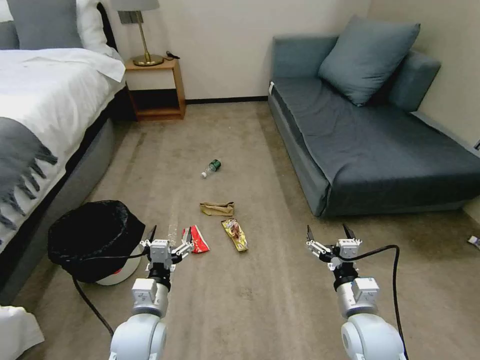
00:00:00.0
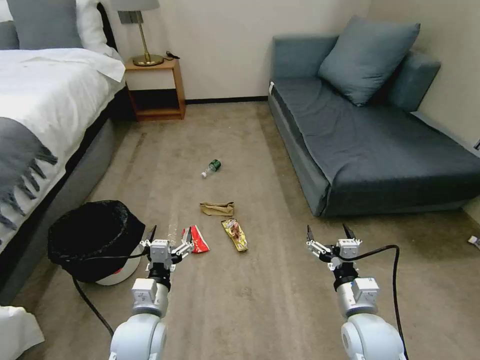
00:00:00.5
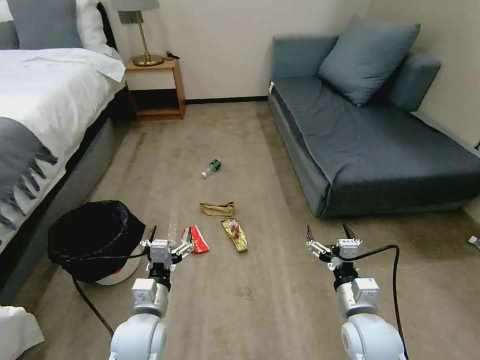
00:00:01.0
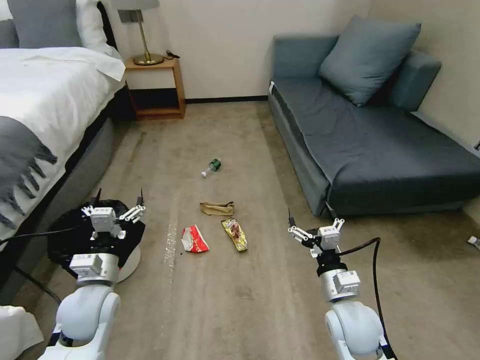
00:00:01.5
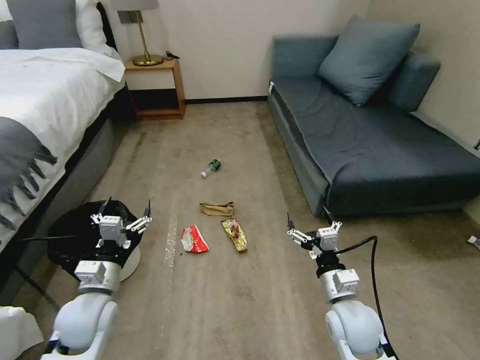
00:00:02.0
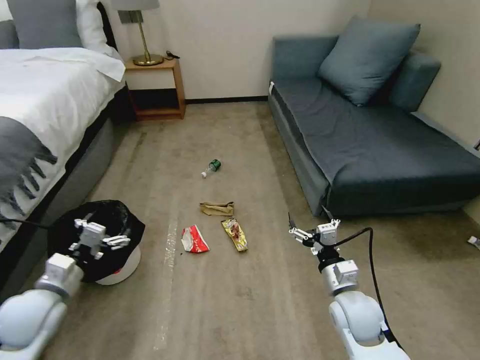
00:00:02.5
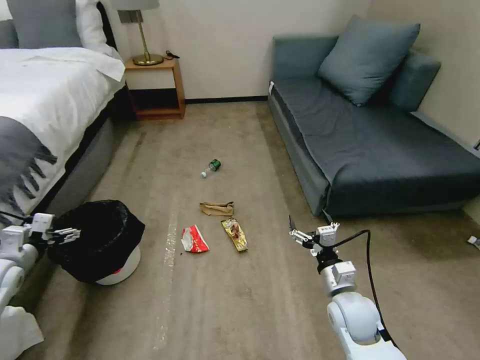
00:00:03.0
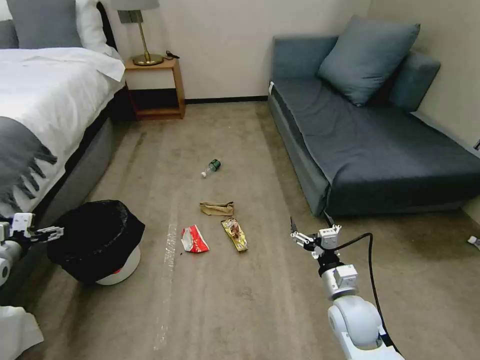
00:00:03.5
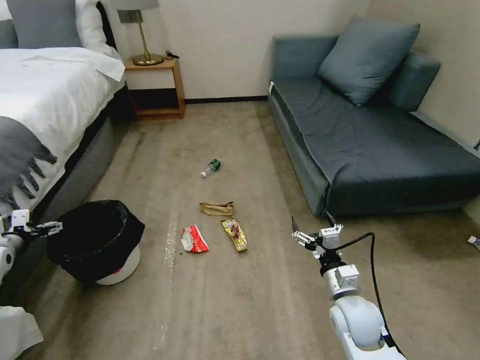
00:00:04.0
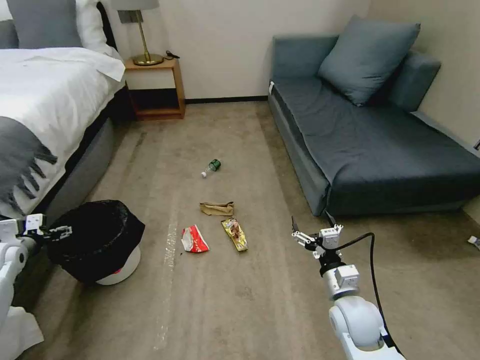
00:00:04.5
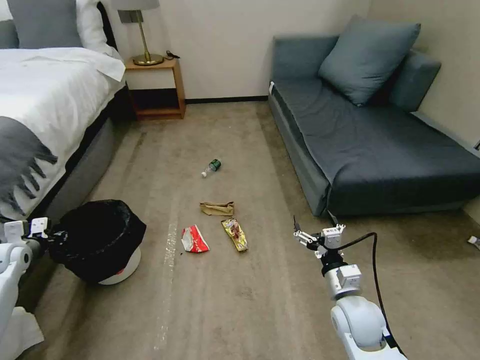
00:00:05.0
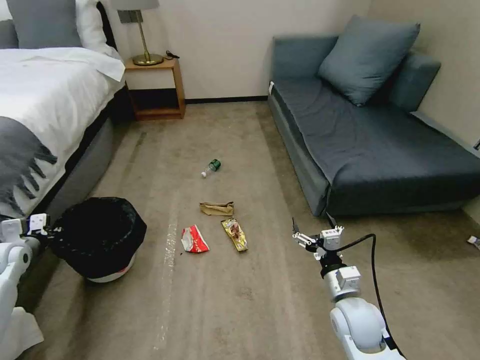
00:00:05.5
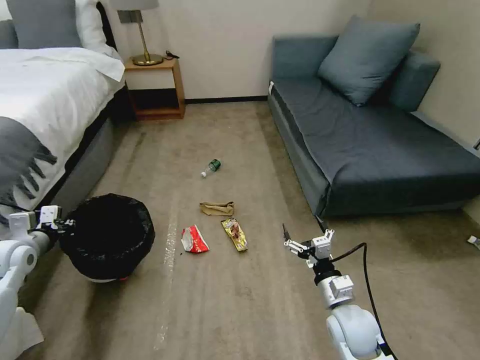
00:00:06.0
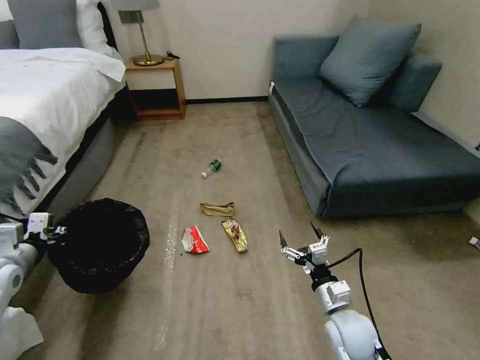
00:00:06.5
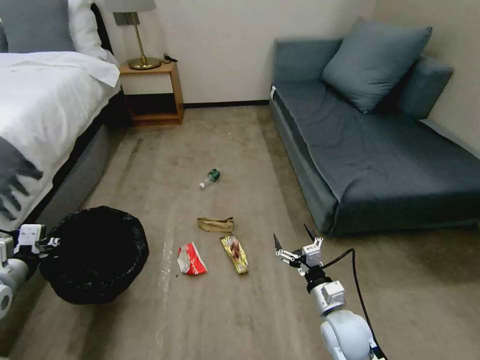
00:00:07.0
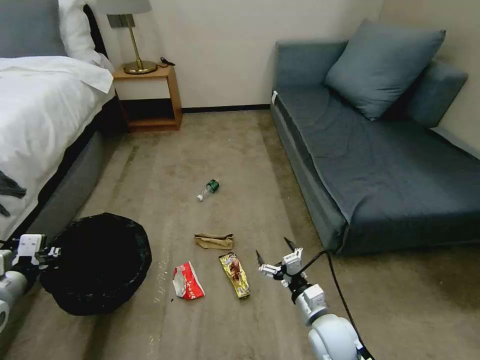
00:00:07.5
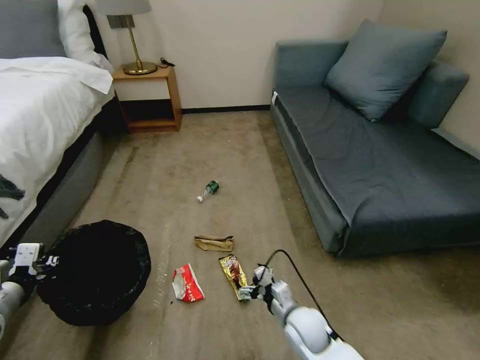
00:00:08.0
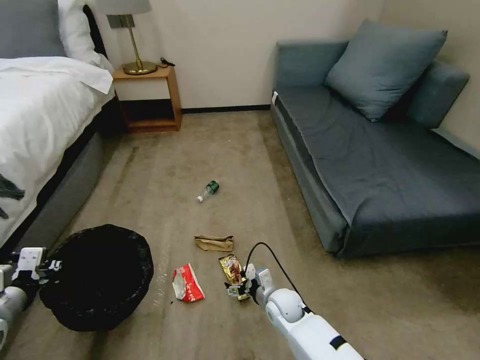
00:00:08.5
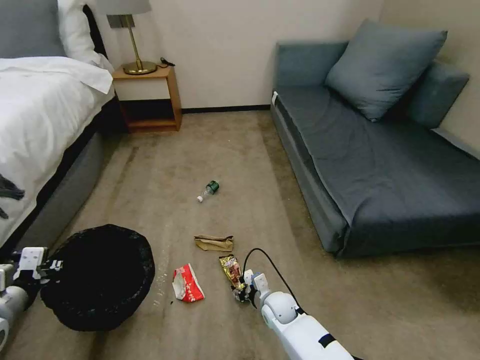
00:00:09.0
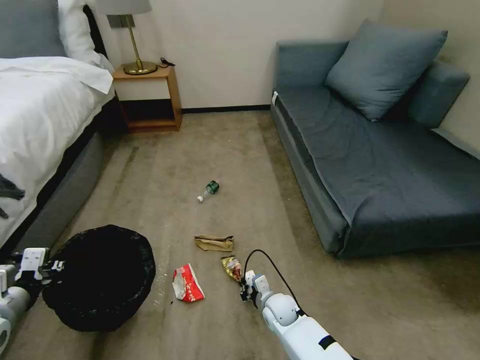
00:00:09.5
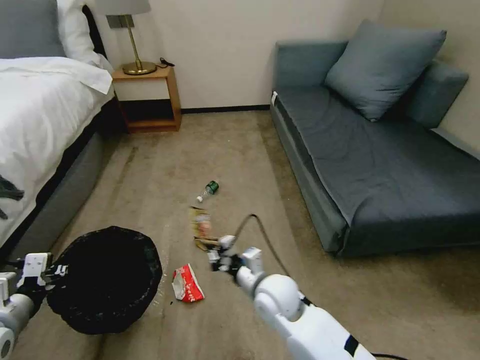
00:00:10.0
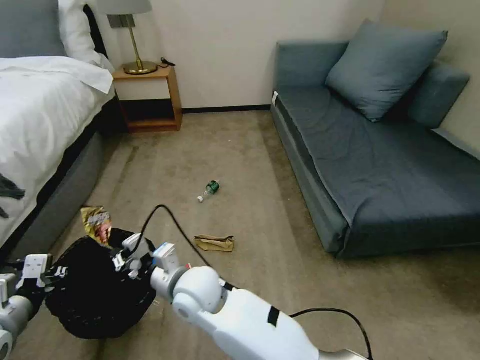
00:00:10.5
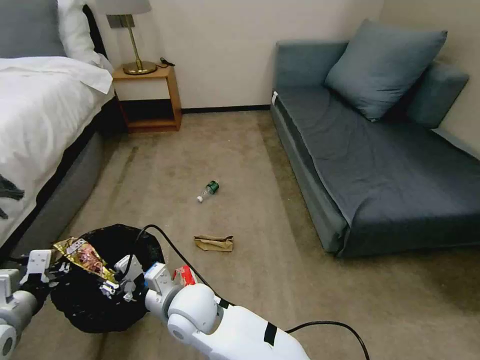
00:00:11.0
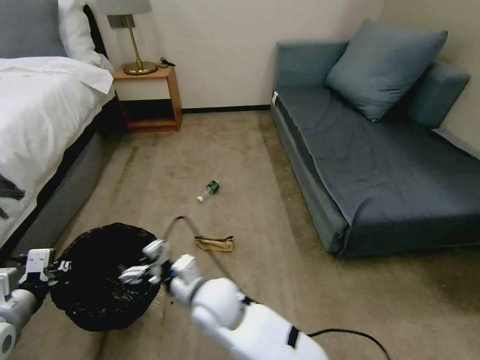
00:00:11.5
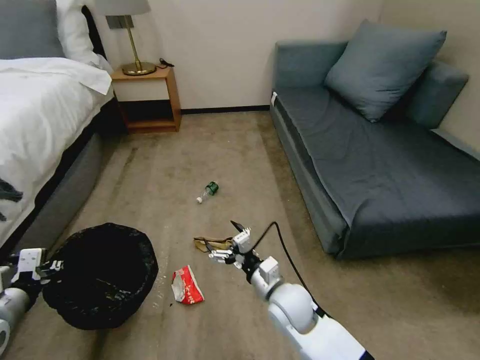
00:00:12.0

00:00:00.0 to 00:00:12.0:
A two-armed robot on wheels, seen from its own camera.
Task of the whole recording: Pick up the trash bin, then pick up the garbage on the floor and place it into the trash bin.
00:00:02.0 to 00:00:04.0: The left gripper goes about 30 cm to the left.
00:00:04.0 to 00:00:06.0: The left gripper goes some 10 cm to the right, and closes.
00:00:06.0 to 00:00:08.0: The right gripper shifts some 10 cm to the left and downward, while the left gripper goes roughly 15 cm backward and to the right.
00:00:08.0 to 00:00:10.0: The right gripper shifts roughly 15 cm upward, to the left and forward, and closes up.
00:00:10.0 to 00:00:12.0: The right gripper goes to the left and returns, some 20 cm each way, and opens its fingers.

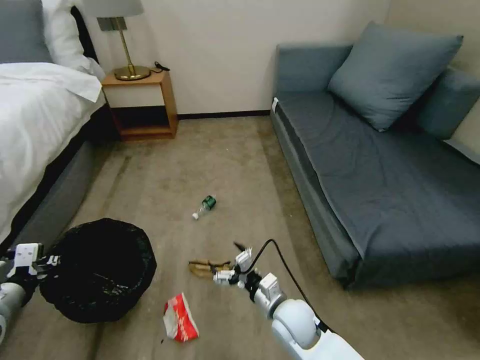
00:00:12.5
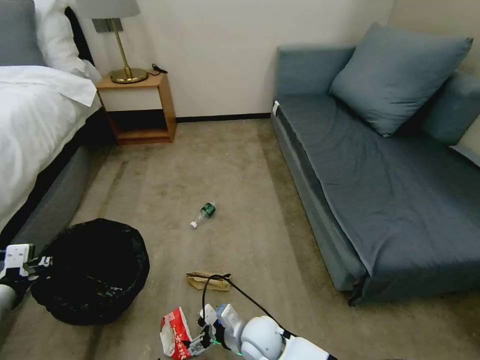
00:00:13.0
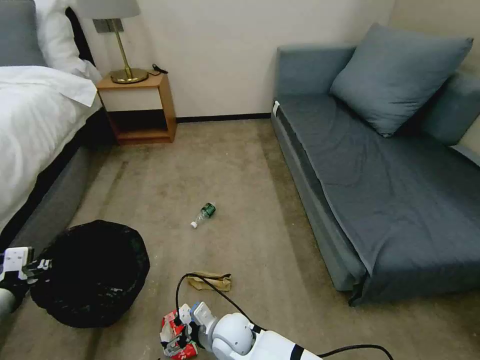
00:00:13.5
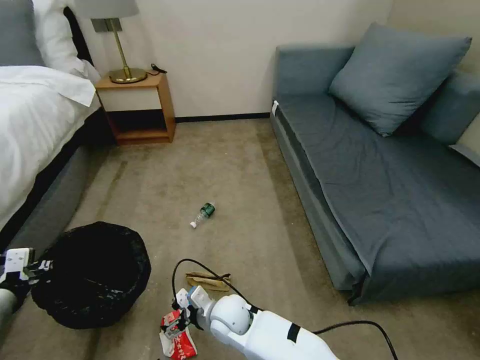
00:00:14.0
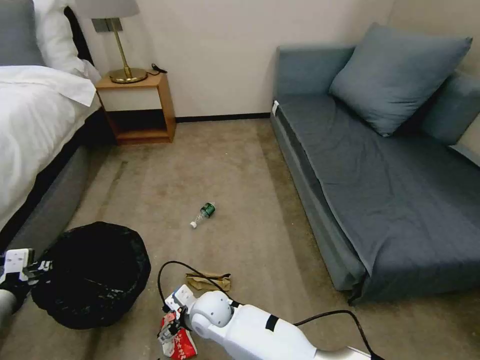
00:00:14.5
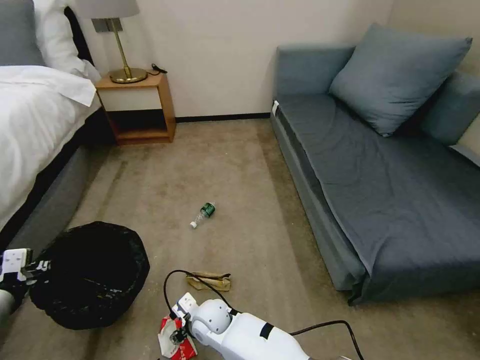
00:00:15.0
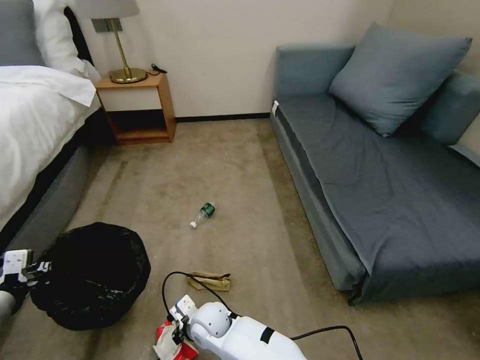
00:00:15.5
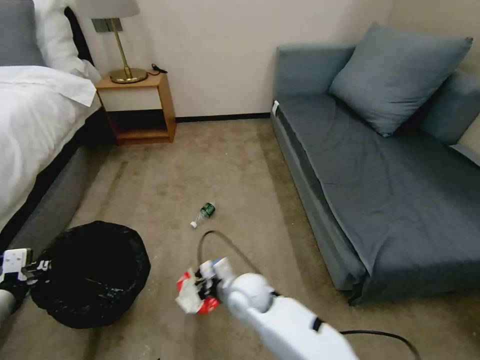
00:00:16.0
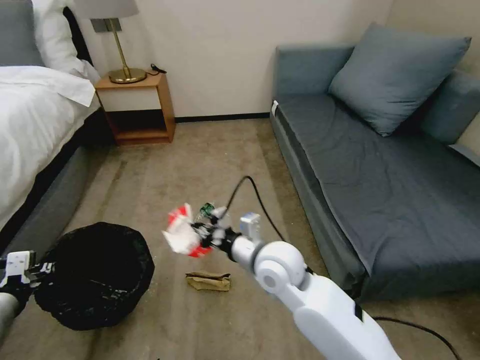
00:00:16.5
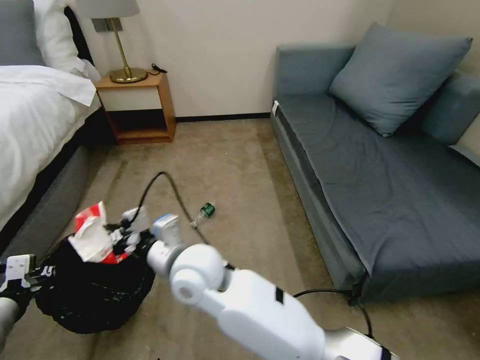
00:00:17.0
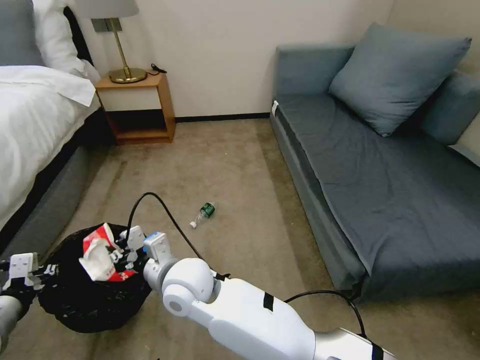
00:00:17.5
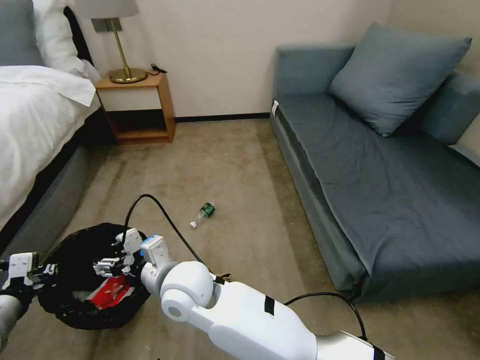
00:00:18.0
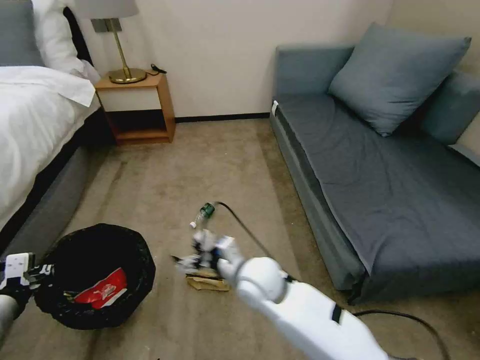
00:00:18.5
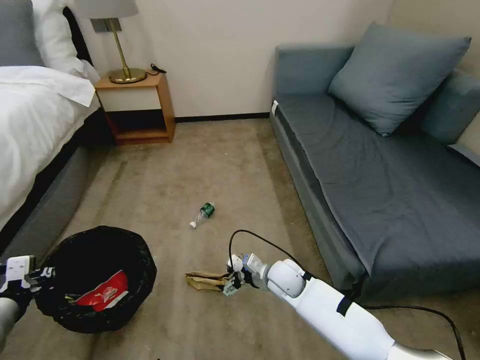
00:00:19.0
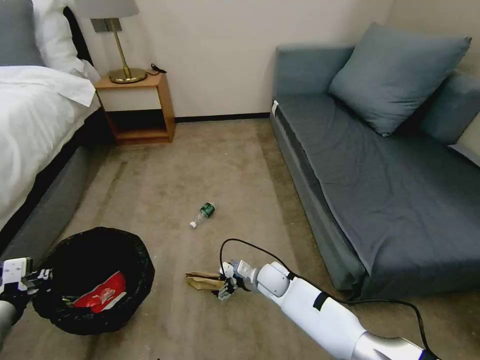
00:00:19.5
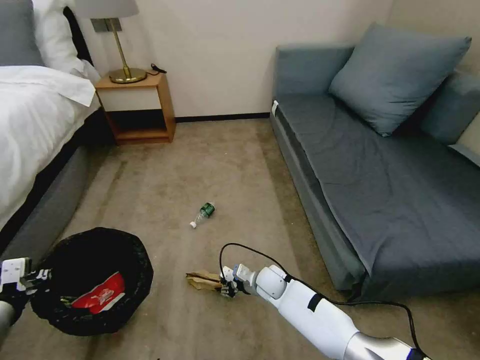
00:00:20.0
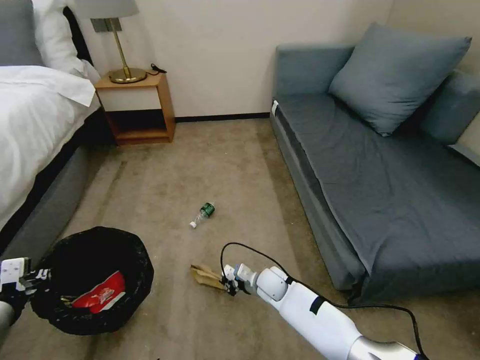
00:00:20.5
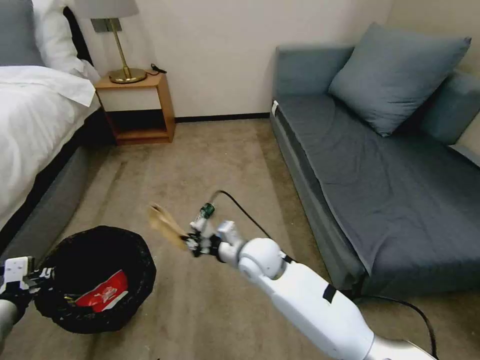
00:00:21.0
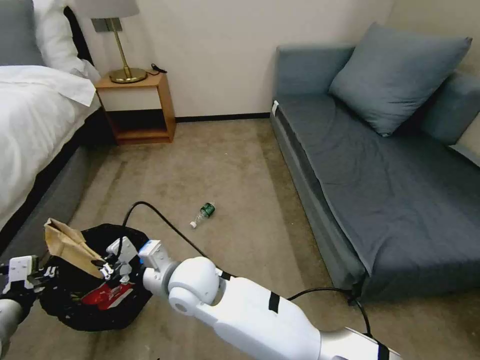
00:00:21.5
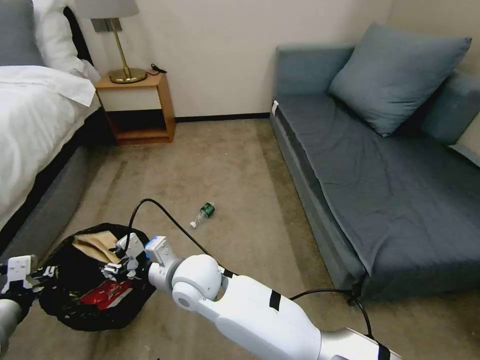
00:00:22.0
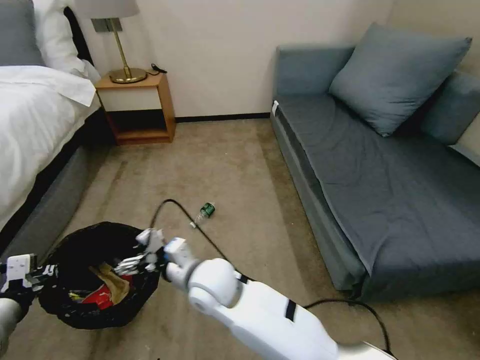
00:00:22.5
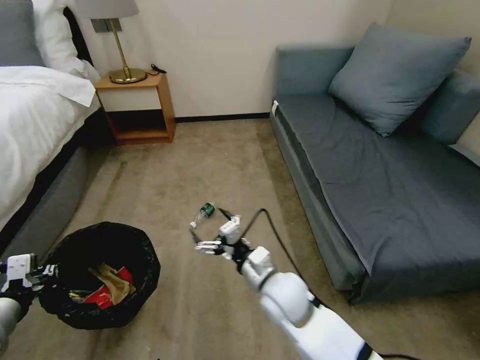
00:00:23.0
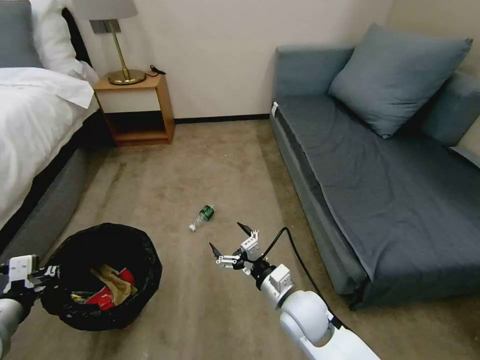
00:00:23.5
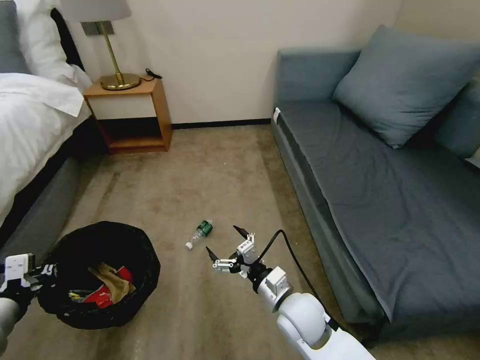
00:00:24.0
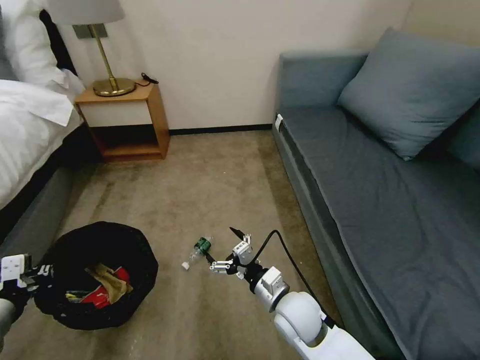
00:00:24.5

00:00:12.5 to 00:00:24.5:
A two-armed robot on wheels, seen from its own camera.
Task of the whole recording: Pick up the trash bin, then pick up the garbage on the floor and place it into the trash bin.
00:00:12.5 to 00:00:14.5: The right gripper goes roughly 20 cm to the left.
00:00:14.5 to 00:00:16.5: The right gripper travels upward and to the right by approximately 25 cm, and closes.
00:00:16.5 to 00:00:18.5: The right gripper moves downward, roughly 5 cm, moves some 20 cm to the left and comes back, and opens its fingers.
00:00:18.5 to 00:00:20.5: The right gripper heads downward, covering some 20 cm, and closes up.
00:00:20.5 to 00:00:22.5: The right gripper moves upward and to the left, about 25 cm, and opens its fingers.
00:00:22.5 to 00:00:24.5: The right gripper goes roughly 20 cm to the right and downward.

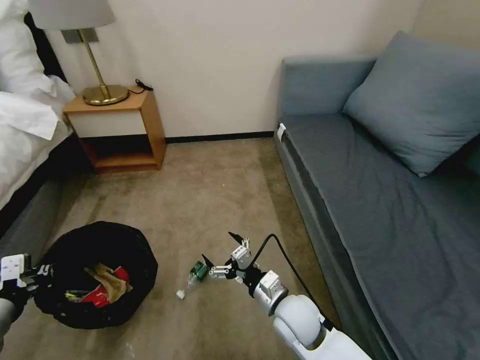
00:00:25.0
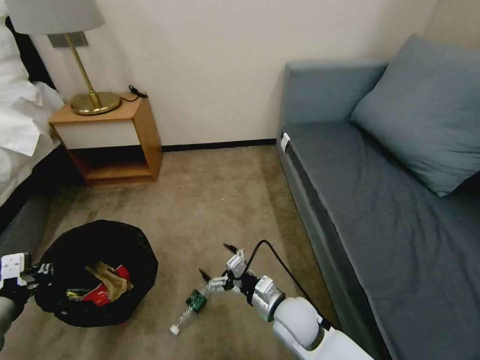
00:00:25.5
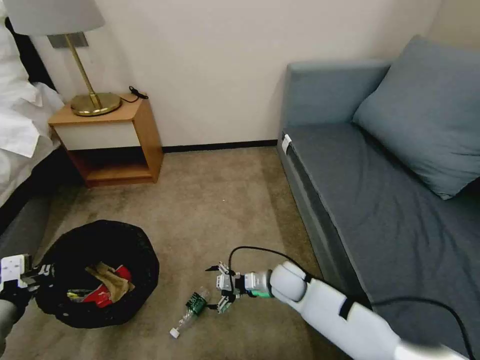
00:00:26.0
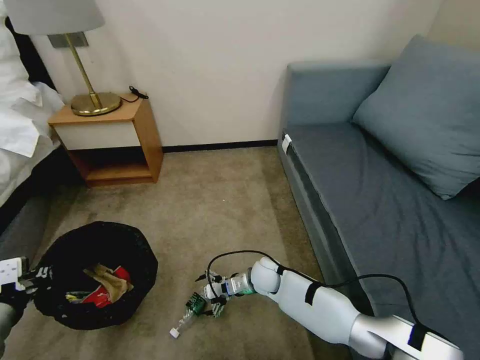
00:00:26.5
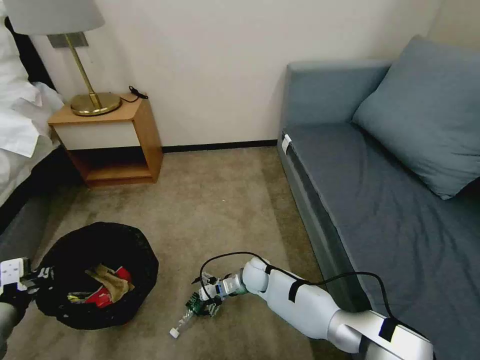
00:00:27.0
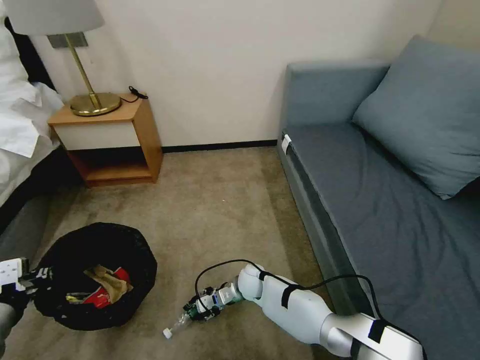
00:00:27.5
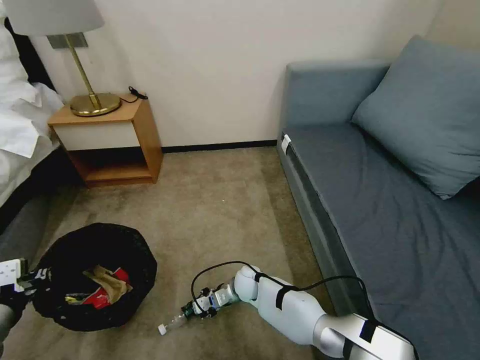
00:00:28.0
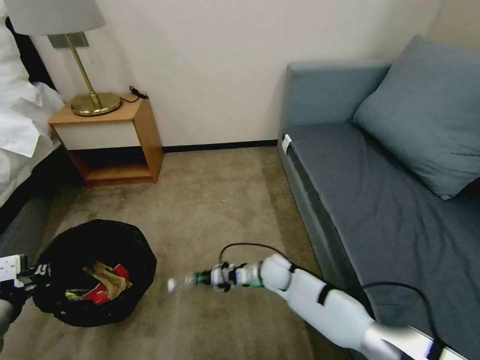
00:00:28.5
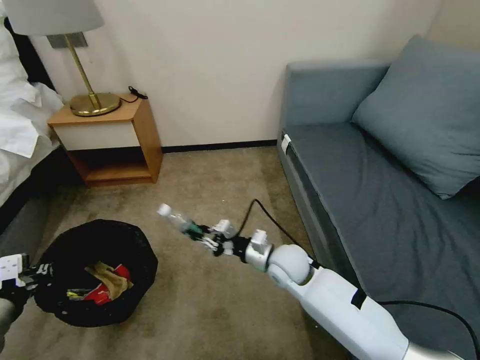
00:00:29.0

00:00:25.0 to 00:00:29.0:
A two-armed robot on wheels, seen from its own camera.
Task of the whole recording: Pick up the trash bin, then pick up the garbage on the floor and place it into the trash bin.
00:00:25.0 to 00:00:27.0: The right gripper shifts roughly 20 cm forward, downward and to the left.
00:00:27.0 to 00:00:29.0: The right gripper heads upward, covering roughly 15 cm, and closes its fingers.
